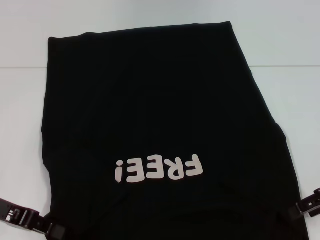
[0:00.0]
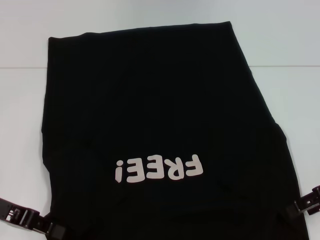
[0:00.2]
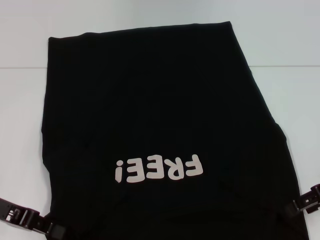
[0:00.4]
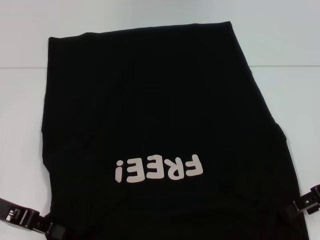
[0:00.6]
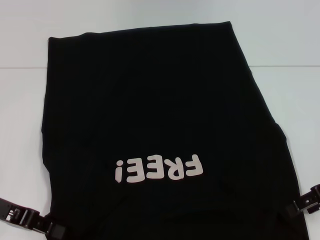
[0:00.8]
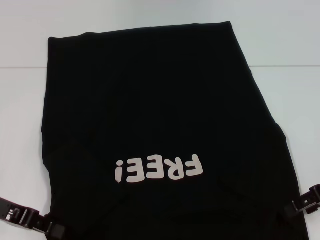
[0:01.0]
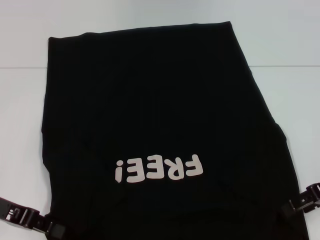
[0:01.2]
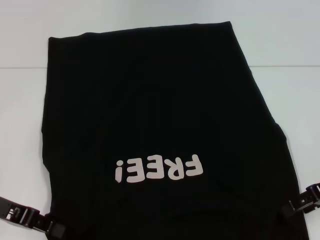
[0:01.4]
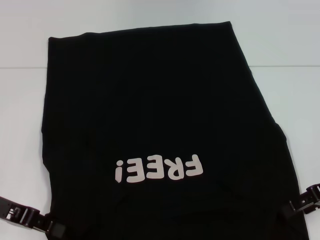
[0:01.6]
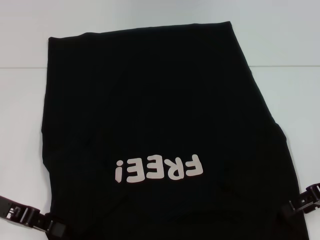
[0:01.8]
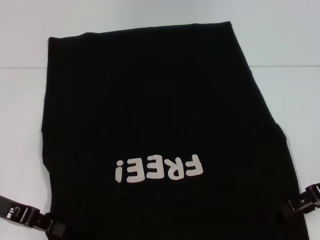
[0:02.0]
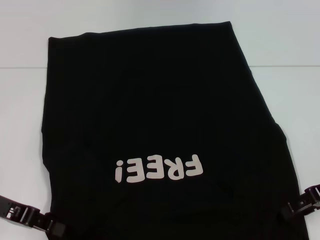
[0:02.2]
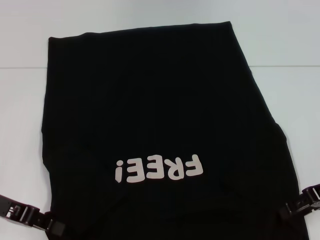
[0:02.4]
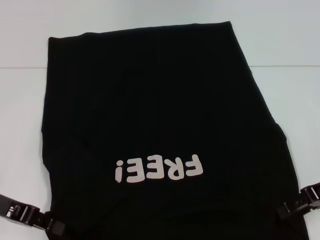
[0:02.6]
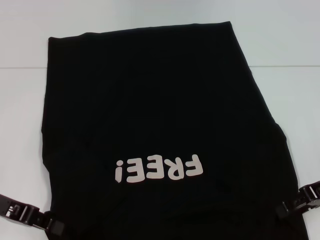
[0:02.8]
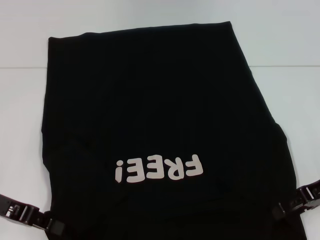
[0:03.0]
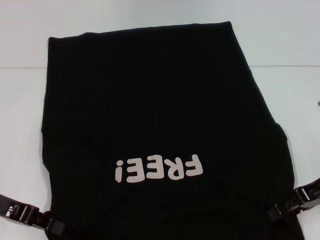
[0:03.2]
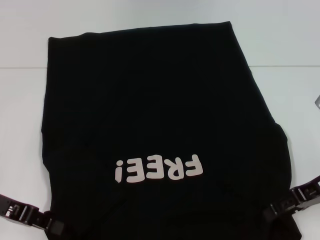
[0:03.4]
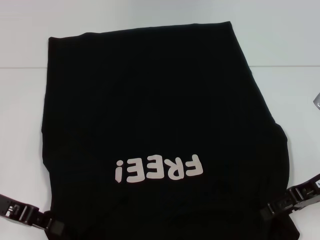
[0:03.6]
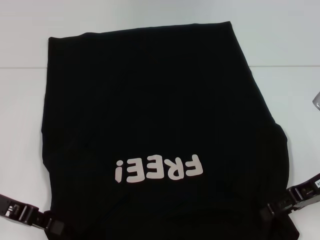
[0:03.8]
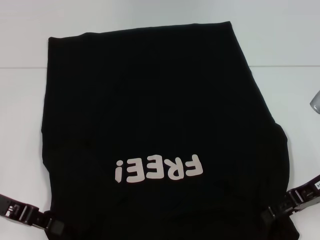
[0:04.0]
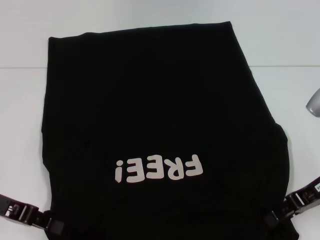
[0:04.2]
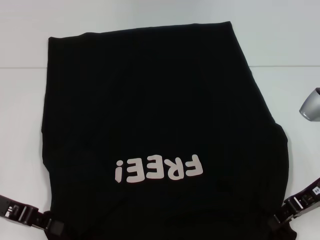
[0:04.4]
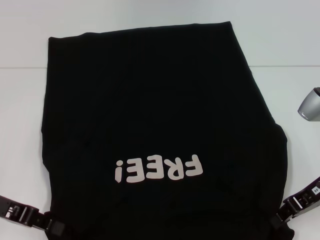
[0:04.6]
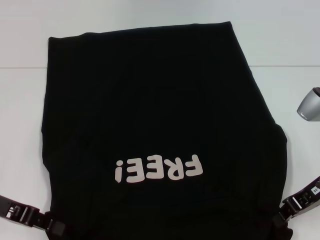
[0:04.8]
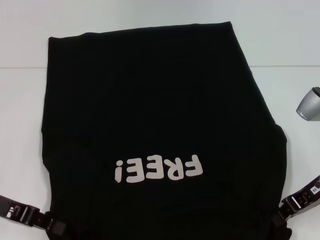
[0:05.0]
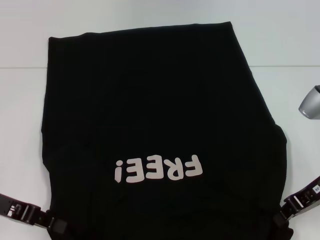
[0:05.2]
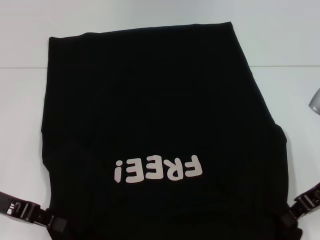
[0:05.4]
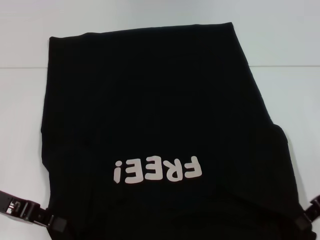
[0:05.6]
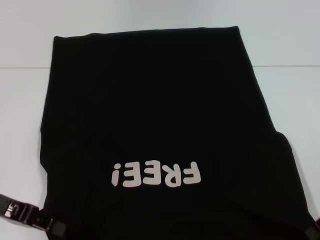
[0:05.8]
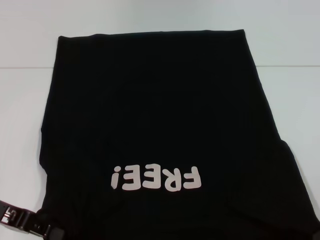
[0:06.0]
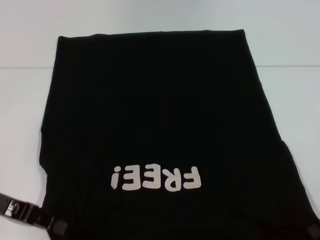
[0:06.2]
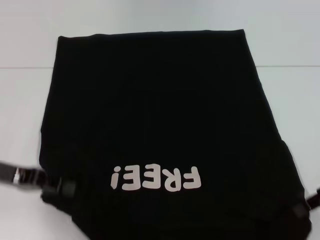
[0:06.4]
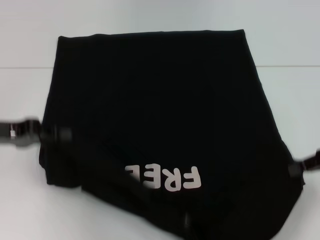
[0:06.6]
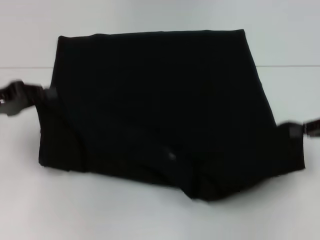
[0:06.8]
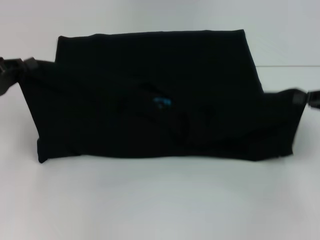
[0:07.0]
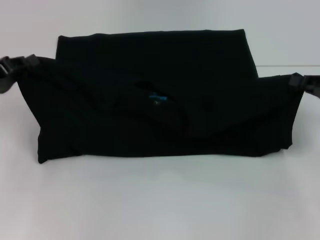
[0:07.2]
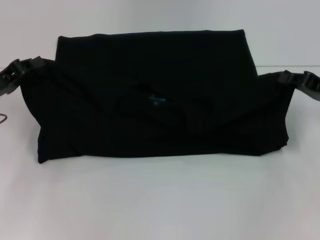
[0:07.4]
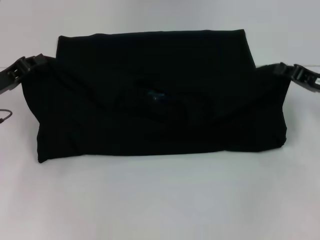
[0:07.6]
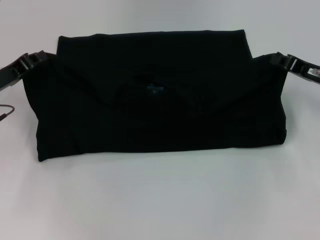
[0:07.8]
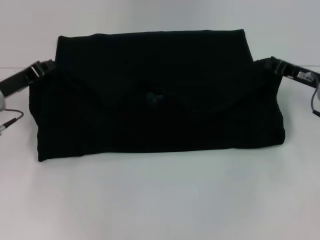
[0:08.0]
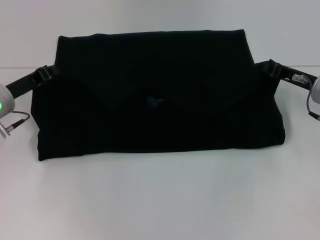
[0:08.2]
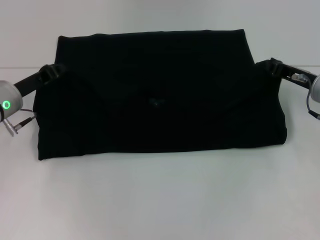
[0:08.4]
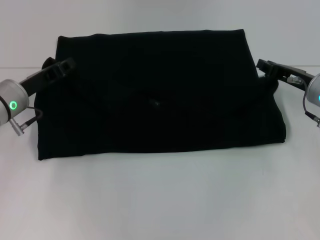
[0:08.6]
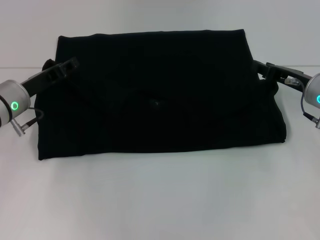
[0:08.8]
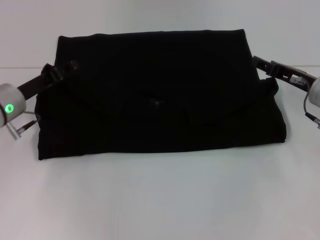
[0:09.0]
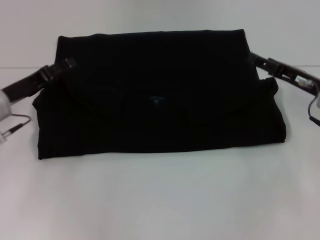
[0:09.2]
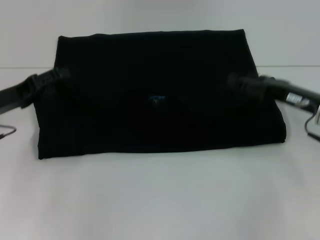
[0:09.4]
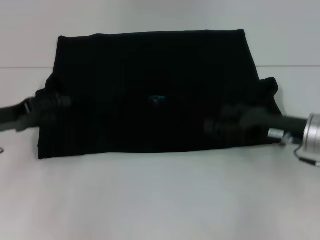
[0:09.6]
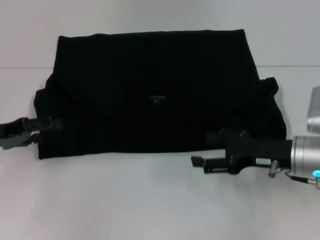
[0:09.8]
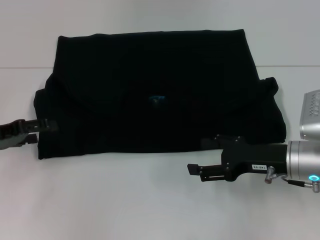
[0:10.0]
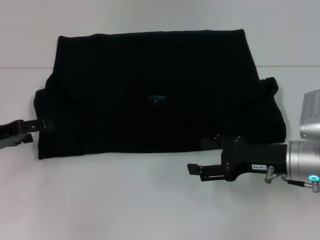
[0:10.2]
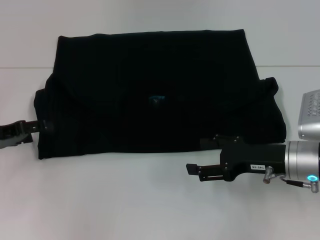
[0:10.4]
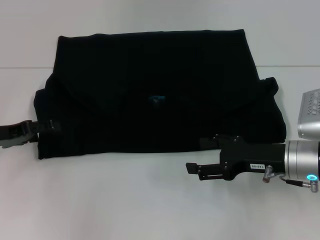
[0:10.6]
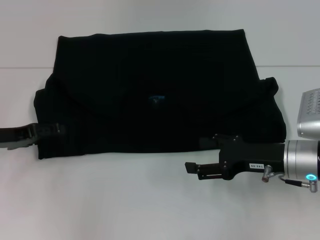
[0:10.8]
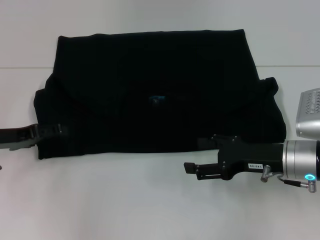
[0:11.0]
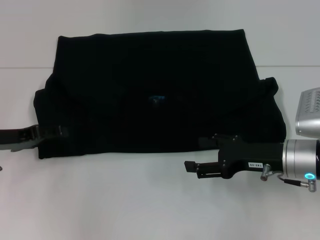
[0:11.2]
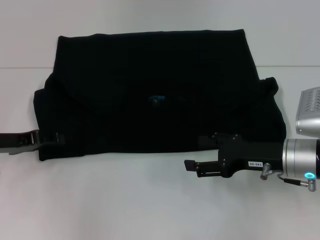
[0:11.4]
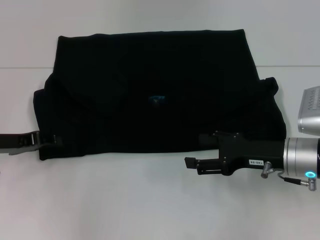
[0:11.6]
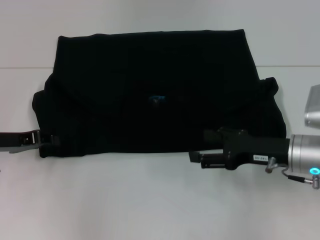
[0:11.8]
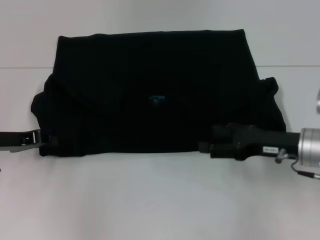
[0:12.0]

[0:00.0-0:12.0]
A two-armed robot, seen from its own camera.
Step, 0:00.0 to 0:09.6: Fold the clothes with your left hand.
Step, 0:00.0 to 0:09.6: Fold the clothes with your right hand.
0:00.0 to 0:01.6: Both grippers stay put.
0:01.6 to 0:04.4: The grippers stay close to where they were, moving slightly.
0:04.4 to 0:06.0: The right gripper ends up roughly 5 cm from where it was, and closes.
0:06.0 to 0:07.6: Both grippers travel together forward, about 10 cm.
0:07.6 to 0:09.0: The left gripper ends up some 5 cm from where it was, and opens; the right gripper opens up.
0:09.0 to 0:10.4: The left gripper goes roughly 10 cm to the left, and opens; the right gripper shifts roughly 10 cm backward, and opens its fingers.
0:10.4 to 0:12.0: The left gripper closes up.

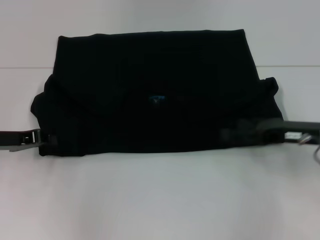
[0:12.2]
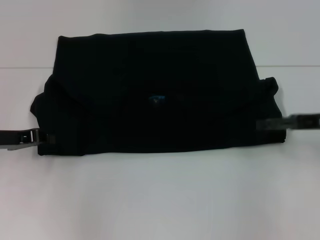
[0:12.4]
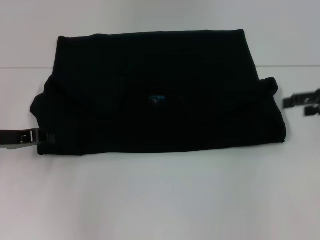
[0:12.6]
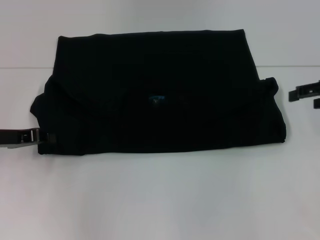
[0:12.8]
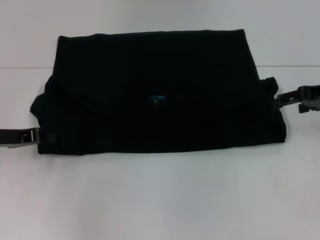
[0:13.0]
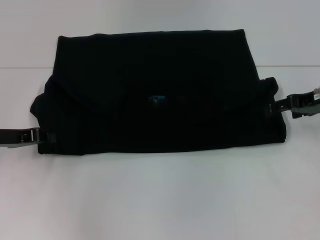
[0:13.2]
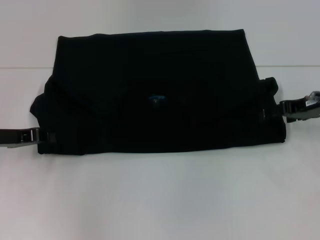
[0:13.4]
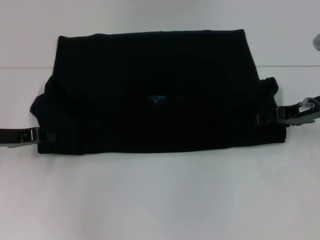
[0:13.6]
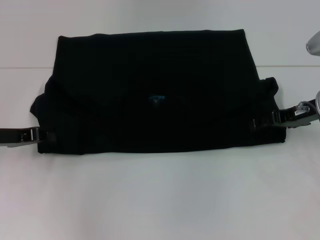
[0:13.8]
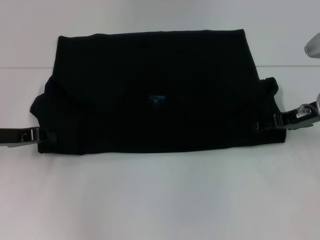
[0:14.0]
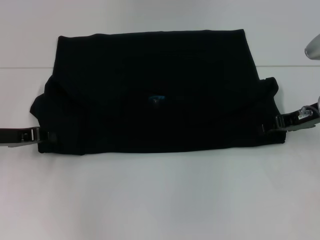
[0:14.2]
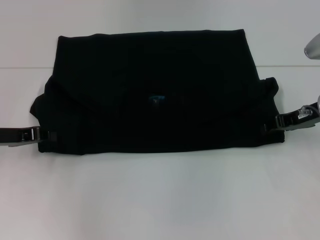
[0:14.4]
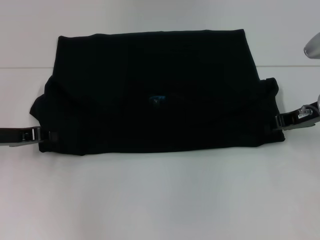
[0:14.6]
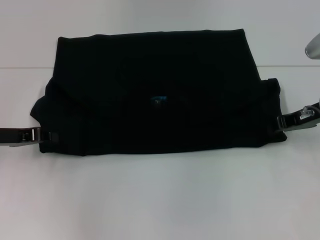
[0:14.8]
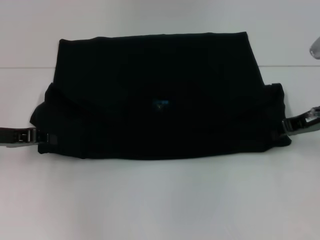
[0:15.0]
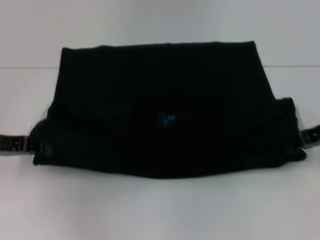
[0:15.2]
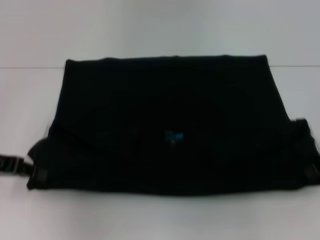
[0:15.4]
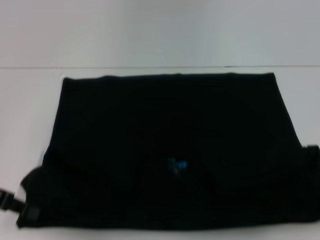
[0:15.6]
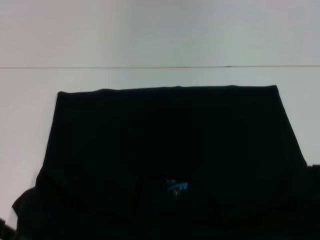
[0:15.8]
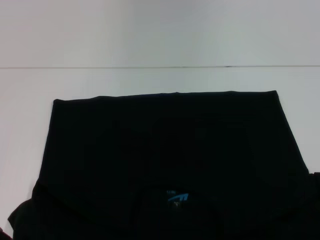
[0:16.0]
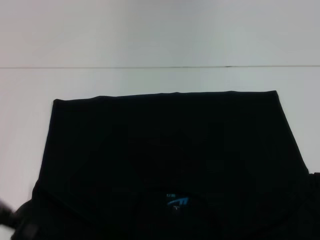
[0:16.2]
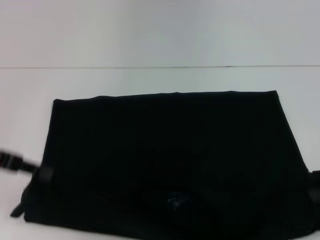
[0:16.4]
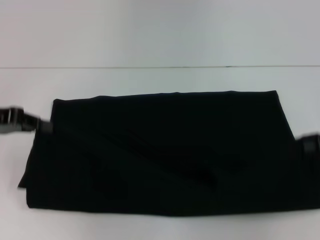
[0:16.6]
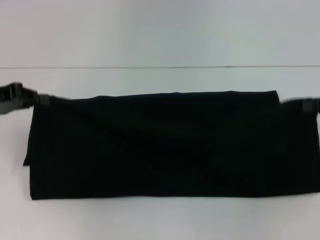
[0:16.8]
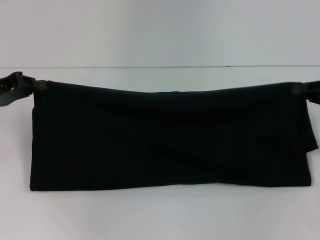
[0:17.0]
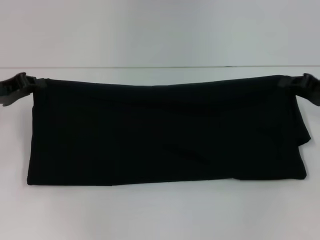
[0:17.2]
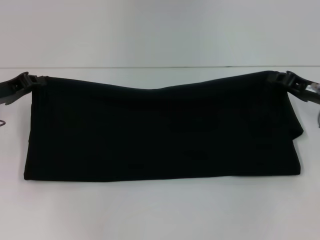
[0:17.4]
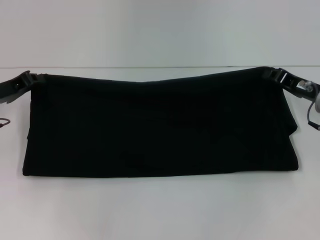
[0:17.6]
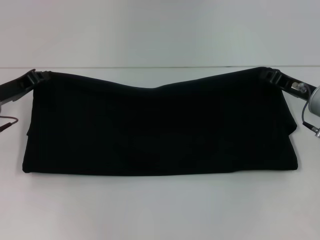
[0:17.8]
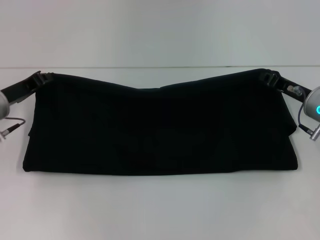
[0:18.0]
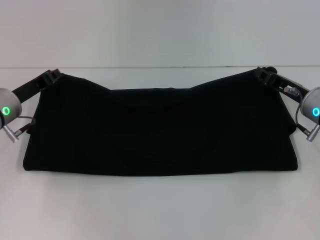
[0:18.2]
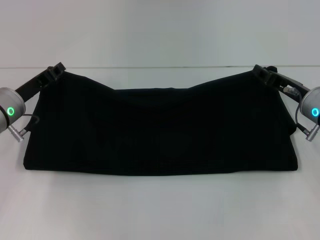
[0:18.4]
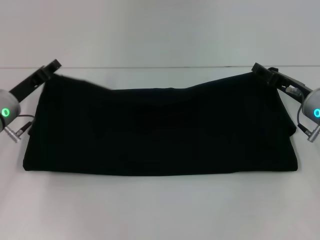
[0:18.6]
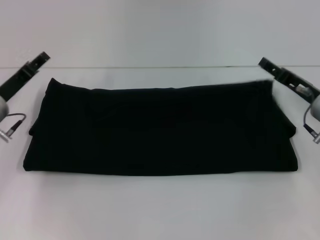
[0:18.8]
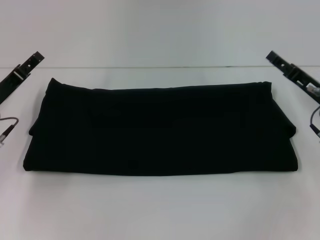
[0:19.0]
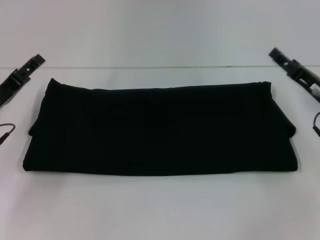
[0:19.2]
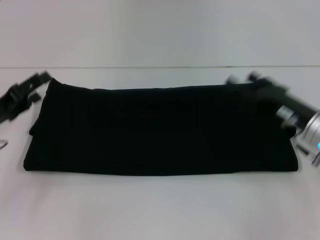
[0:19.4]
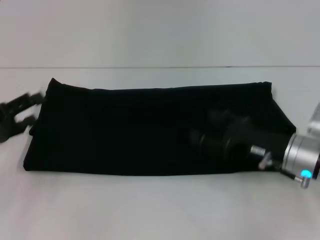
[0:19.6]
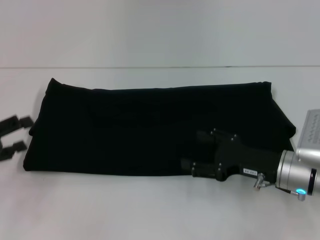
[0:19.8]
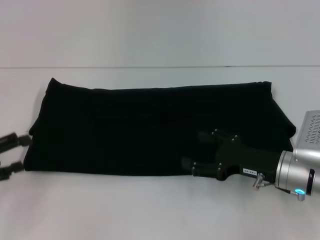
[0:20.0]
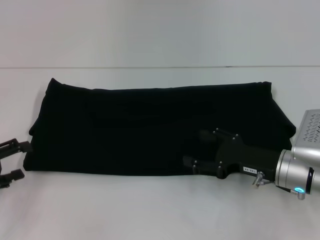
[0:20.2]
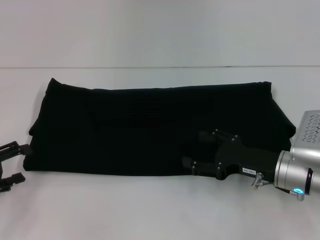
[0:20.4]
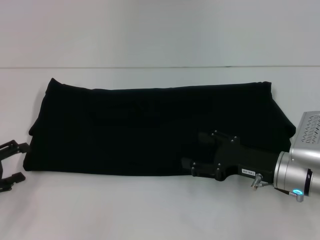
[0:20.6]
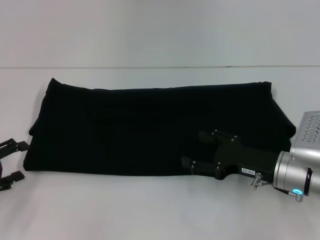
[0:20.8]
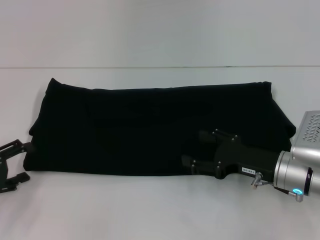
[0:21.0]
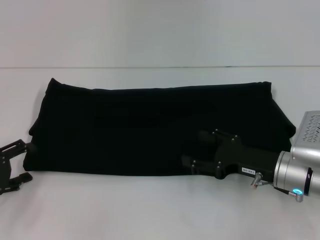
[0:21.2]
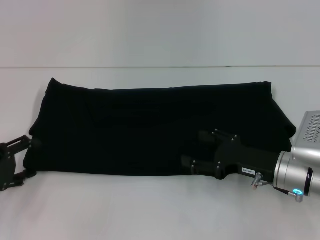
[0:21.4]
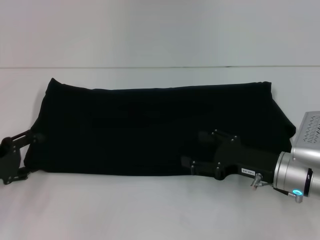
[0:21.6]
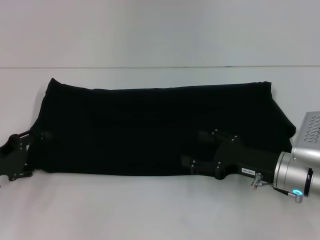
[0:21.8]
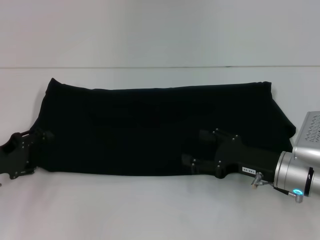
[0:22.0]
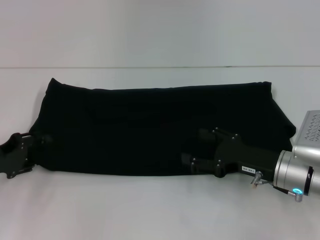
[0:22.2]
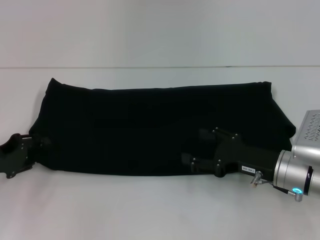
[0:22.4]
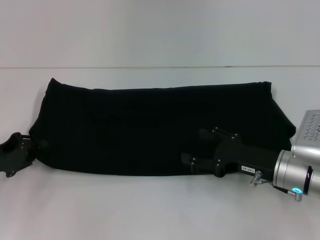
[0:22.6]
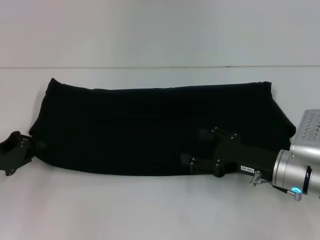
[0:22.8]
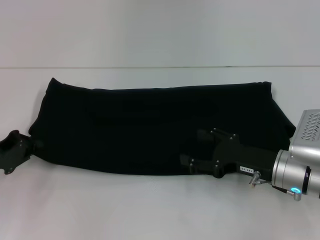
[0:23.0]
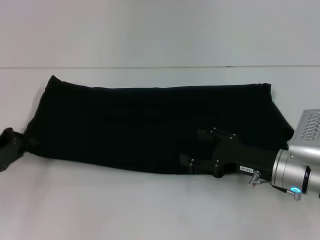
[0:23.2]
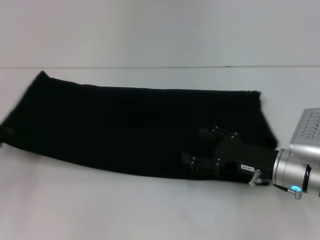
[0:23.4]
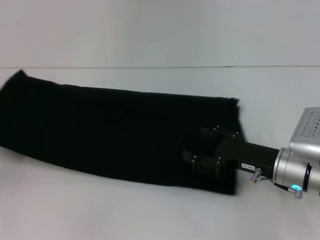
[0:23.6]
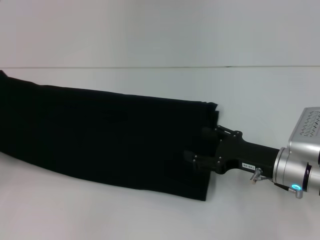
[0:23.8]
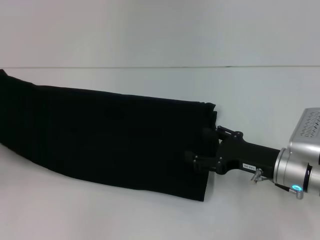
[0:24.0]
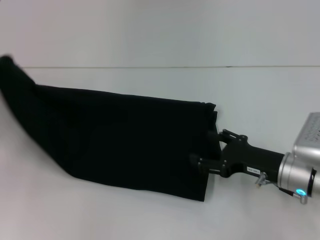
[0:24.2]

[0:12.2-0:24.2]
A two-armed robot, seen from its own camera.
Step, 0:12.2 to 0:15.8: Pull the clothes with your left hand.
Step, 0:12.2 to 0:15.8: Pull the clothes with your right hand.
Step, 0:16.0 to 0:18.8: Fold the clothes with your right hand.
0:12.2 to 0:13.8: The right gripper is displaced forward by some 5 cm, and travels upward and back again, some 10 cm each way.
0:13.8 to 0:15.2: The right gripper closes up.
0:15.2 to 0:16.6: The right gripper is displaced to the right by about 5 cm. Meanwhile the left gripper shifts about 5 cm upward.
0:16.6 to 0:18.2: The right gripper travels to the left, downward and forward by approximately 15 cm. Meanwhile the left gripper heads downward and to the right, covering roughly 10 cm.
0:18.2 to 0:19.8: The right gripper heads backward, covering about 10 cm, and opens its fingers. Meanwhile the left gripper moves backward and to the left, about 15 cm, and opens.
0:21.2 to 0:22.6: The left gripper closes.
0:22.6 to 0:24.2: The left gripper heads upward, covering some 10 cm, and closes up.
